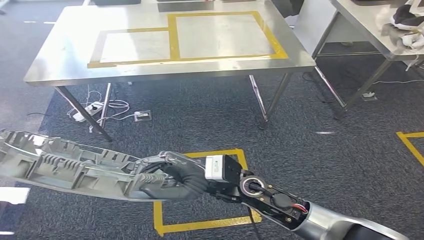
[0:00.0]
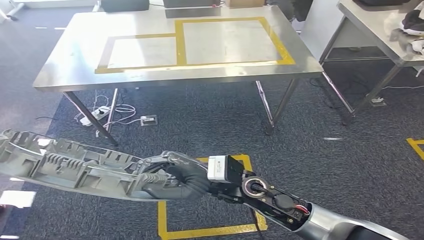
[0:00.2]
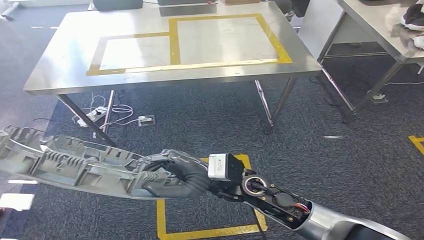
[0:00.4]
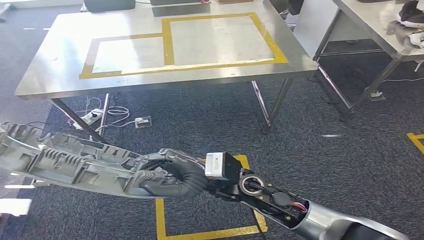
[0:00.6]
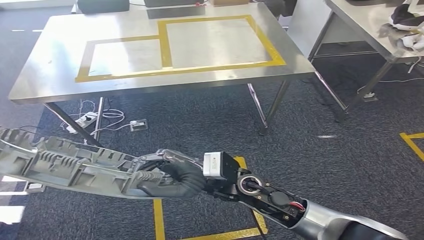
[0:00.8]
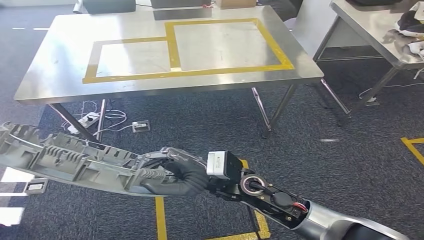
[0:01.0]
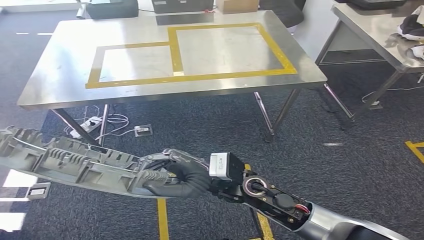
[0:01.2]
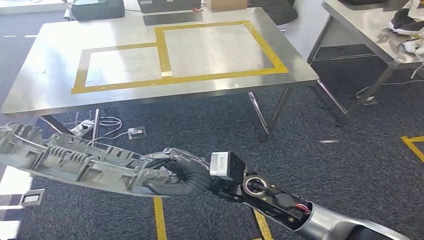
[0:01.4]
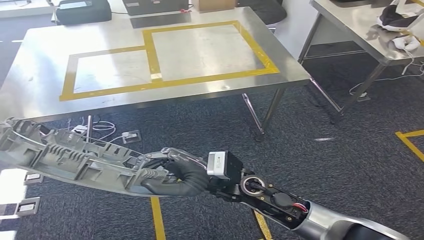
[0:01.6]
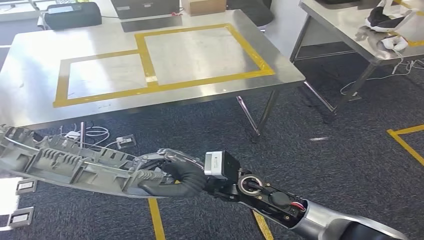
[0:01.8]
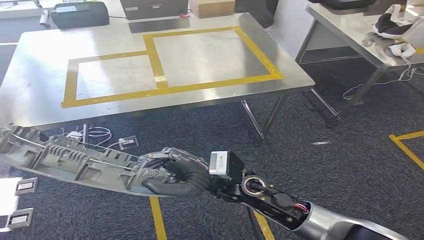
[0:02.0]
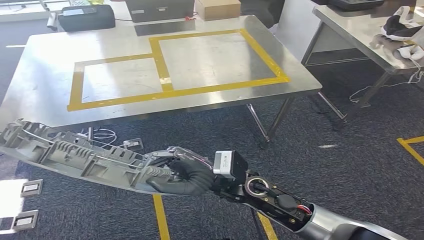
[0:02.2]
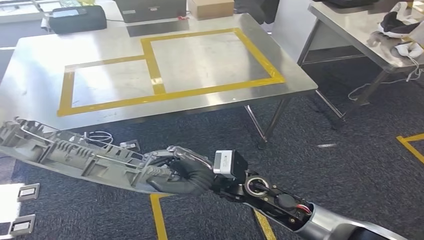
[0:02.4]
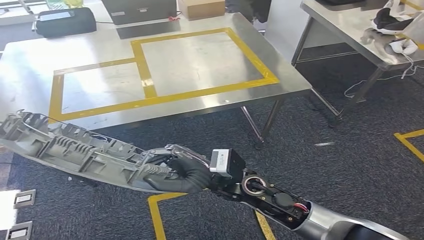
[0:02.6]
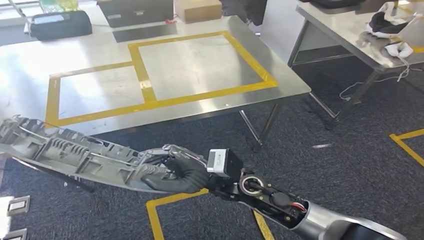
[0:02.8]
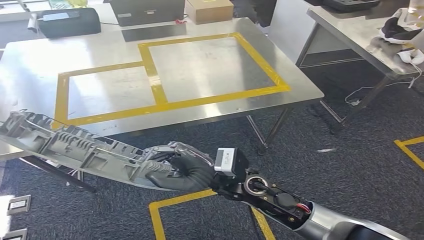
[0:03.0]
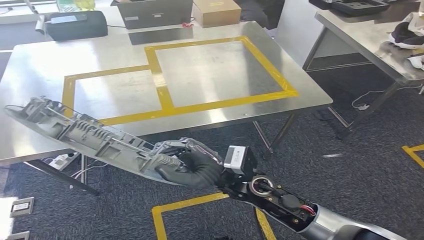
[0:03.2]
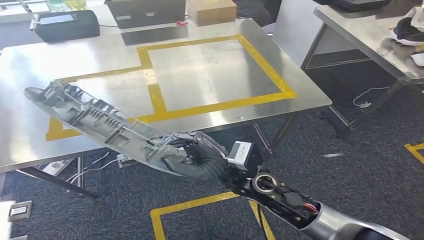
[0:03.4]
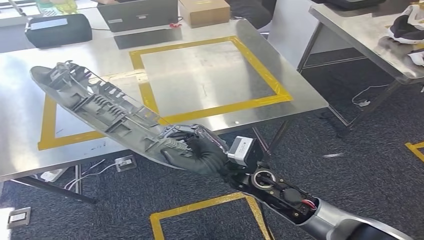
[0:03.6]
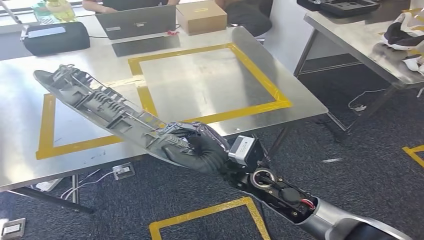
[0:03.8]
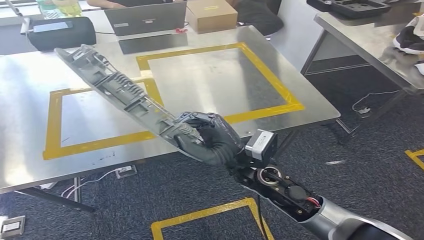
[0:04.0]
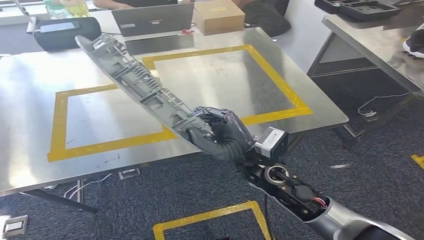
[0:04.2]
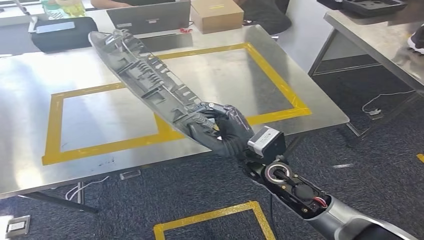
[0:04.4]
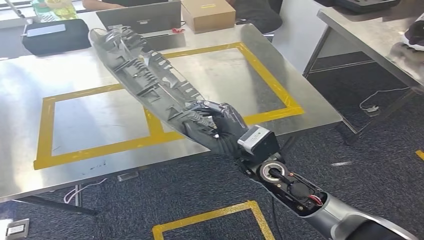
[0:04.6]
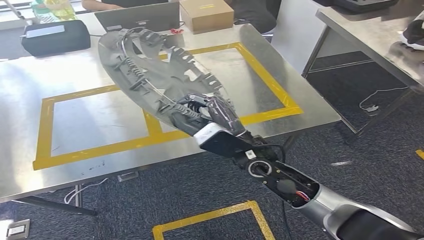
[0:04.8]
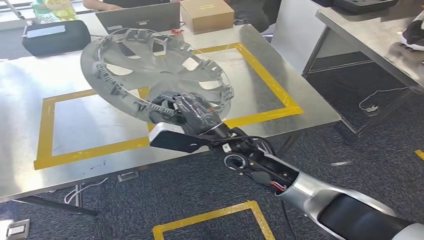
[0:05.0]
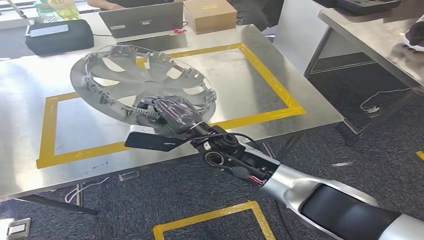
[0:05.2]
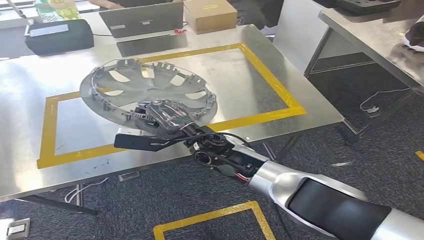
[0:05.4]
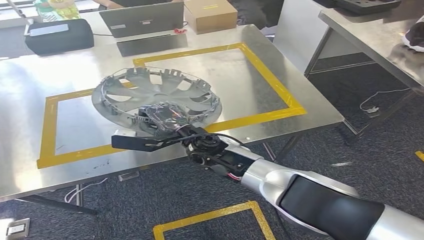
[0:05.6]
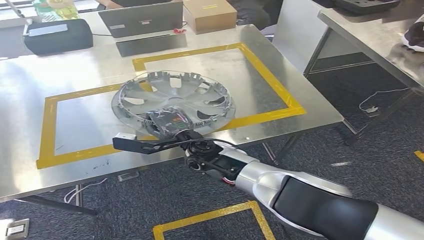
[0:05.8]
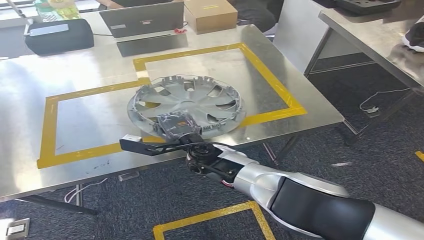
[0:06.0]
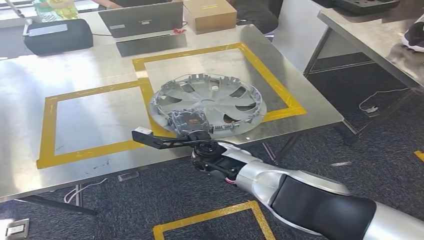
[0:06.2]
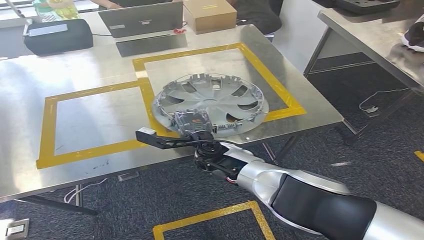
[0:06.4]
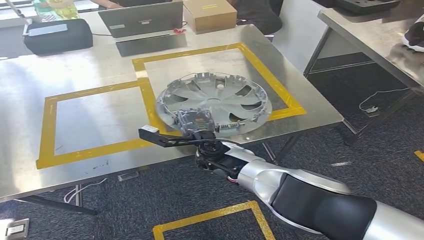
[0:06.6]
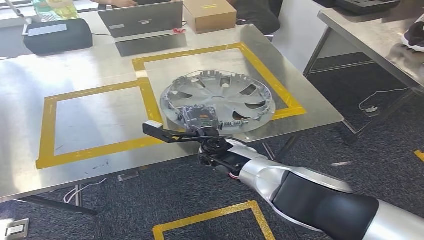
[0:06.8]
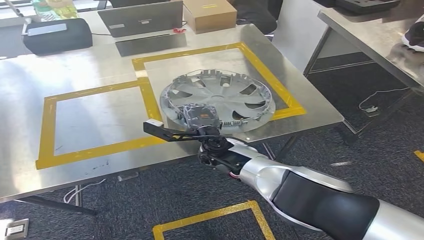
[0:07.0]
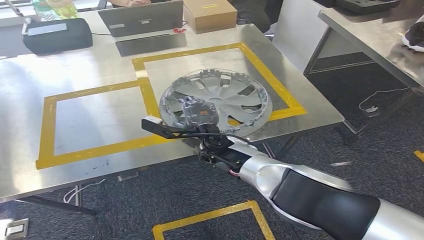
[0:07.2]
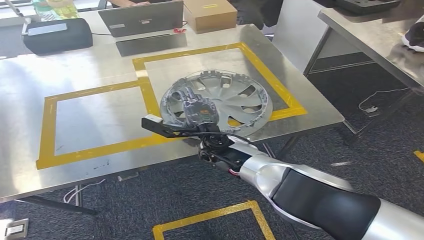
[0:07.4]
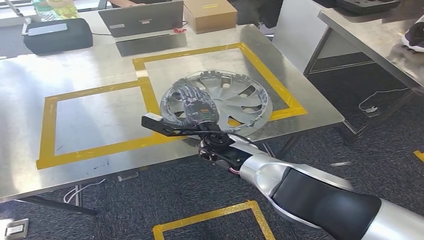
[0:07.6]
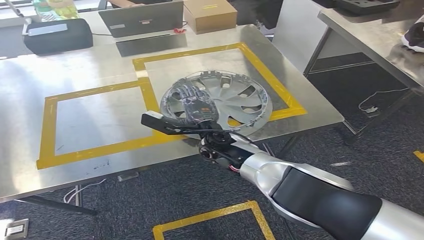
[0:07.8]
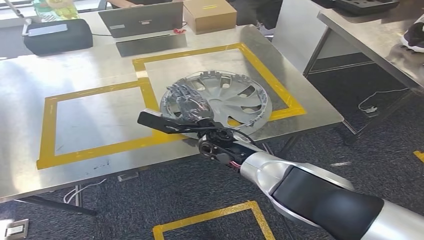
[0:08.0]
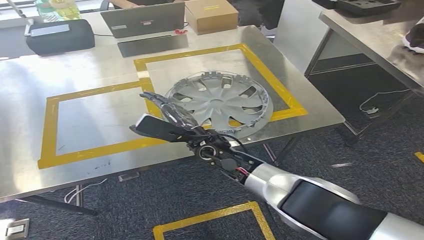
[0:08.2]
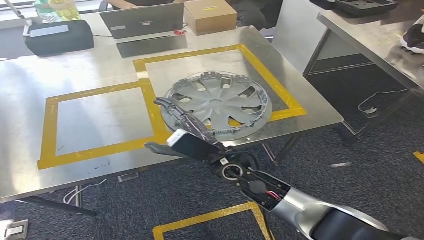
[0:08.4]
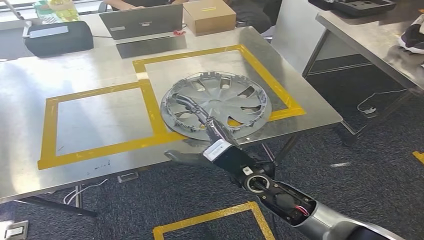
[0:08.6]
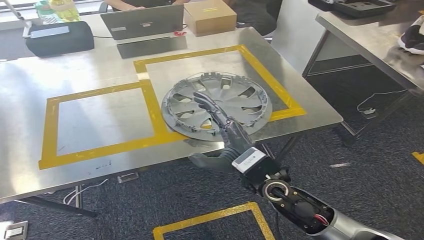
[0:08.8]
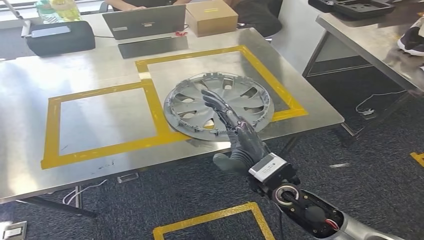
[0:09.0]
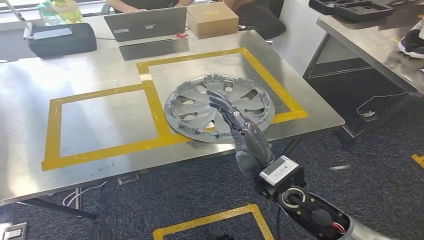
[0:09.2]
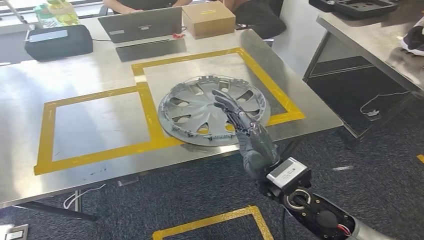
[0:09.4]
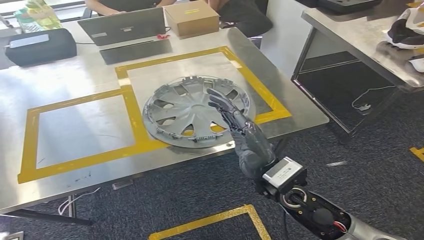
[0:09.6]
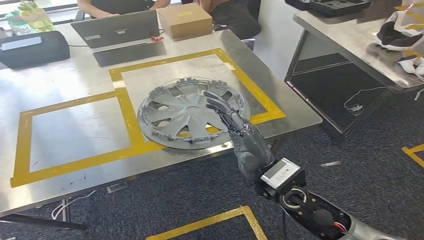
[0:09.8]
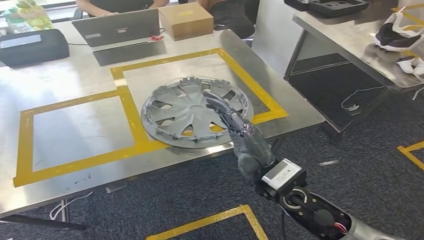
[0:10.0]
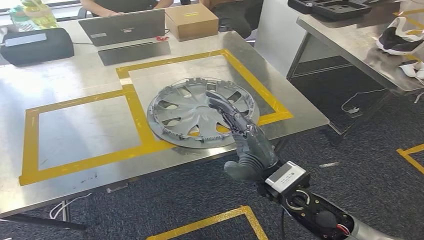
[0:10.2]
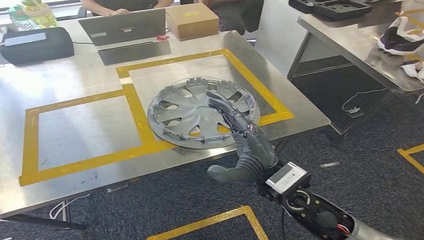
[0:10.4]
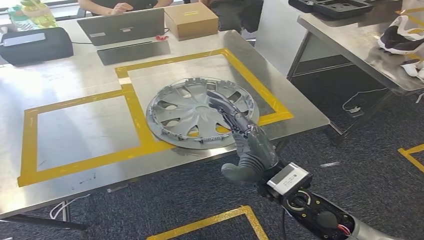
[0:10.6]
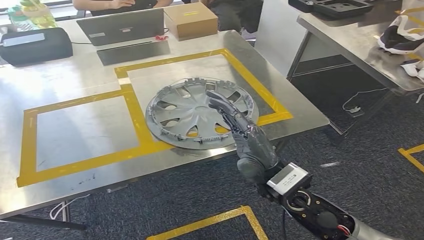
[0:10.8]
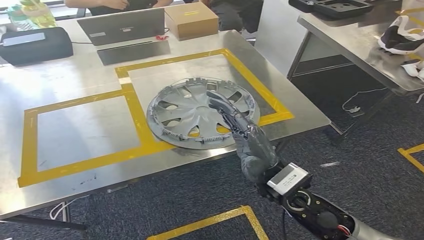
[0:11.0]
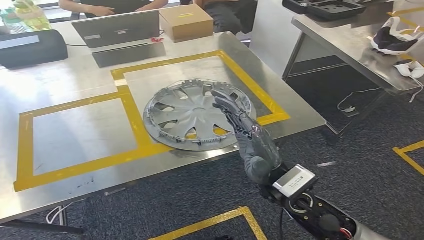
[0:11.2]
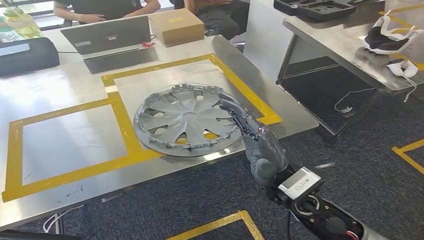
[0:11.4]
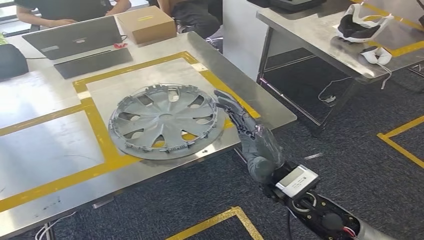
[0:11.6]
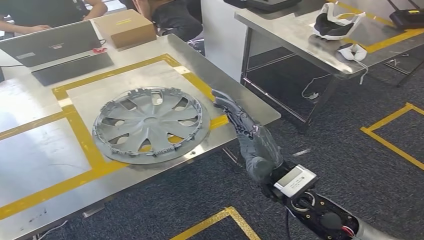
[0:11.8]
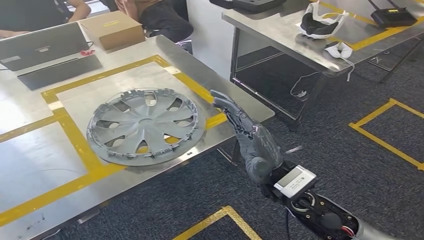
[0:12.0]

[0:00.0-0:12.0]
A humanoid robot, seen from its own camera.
Step, 0:00.0 to 0:04.2: Move the small parts to the workbench.
Step, 0:05.0 to 0:10.4: Insert the small parts into the corresponding holes on the workbench.
0:06.0 to 0:07.6: The hands move only a little.

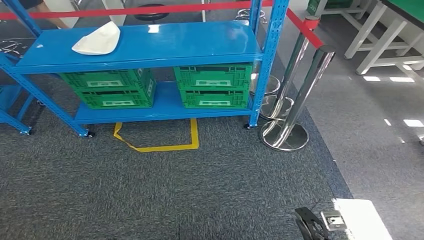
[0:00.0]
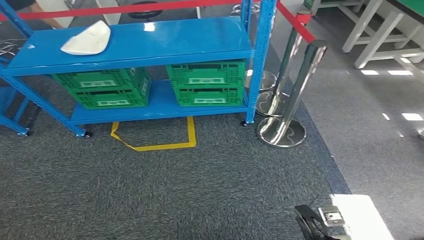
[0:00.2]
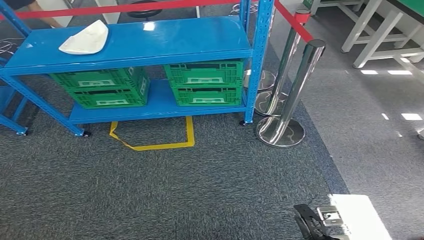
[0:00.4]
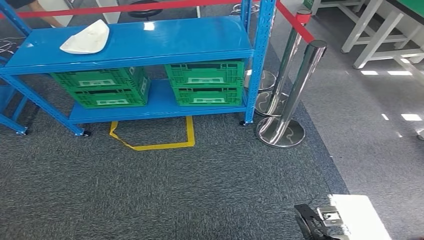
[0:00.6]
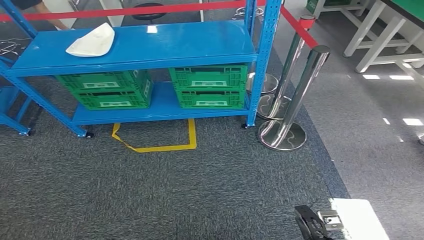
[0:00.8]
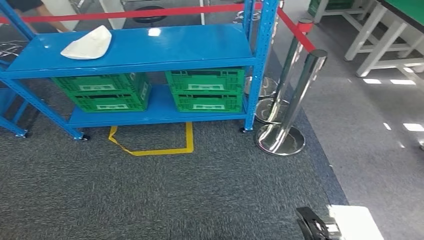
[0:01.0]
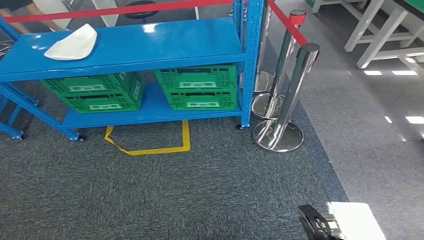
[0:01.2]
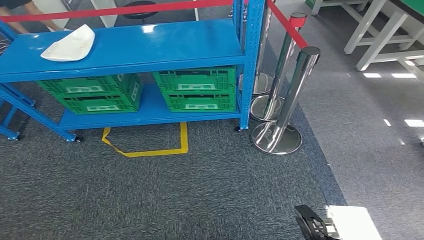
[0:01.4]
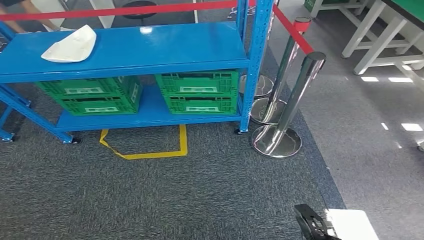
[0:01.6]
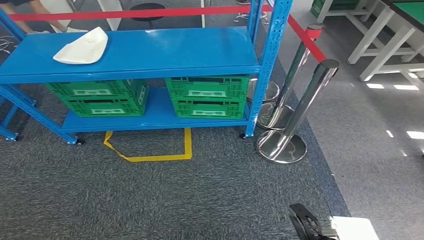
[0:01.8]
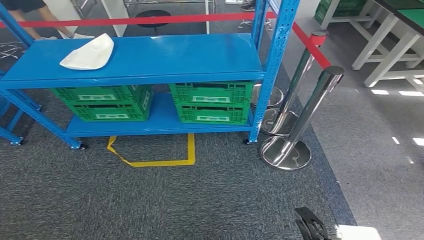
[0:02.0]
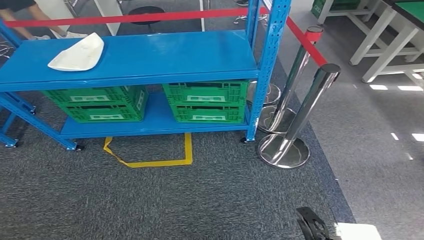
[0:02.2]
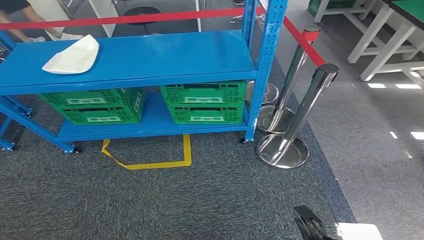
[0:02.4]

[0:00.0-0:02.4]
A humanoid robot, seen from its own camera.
Step, 0:00.0 to 0:02.2: Move to the initial position at the workbench.
